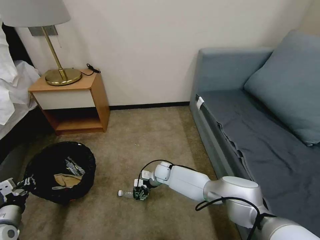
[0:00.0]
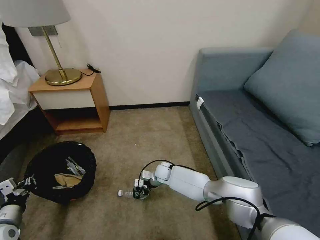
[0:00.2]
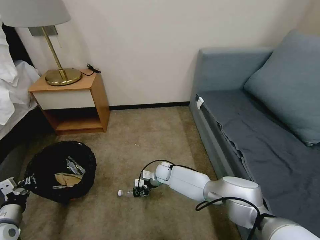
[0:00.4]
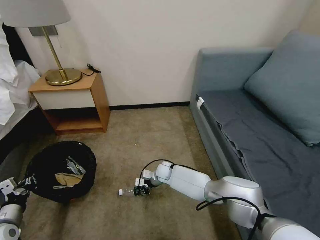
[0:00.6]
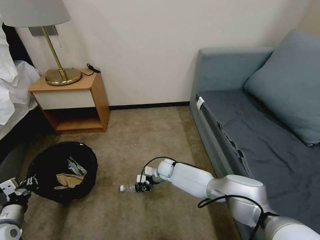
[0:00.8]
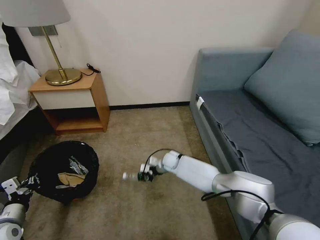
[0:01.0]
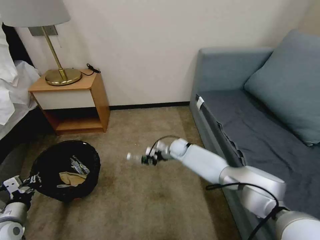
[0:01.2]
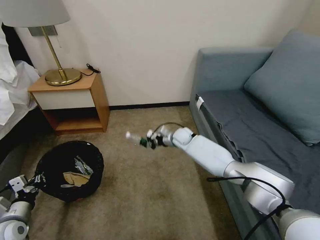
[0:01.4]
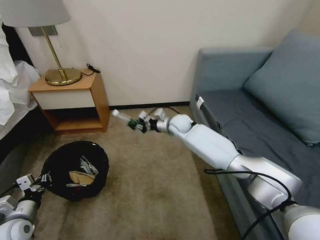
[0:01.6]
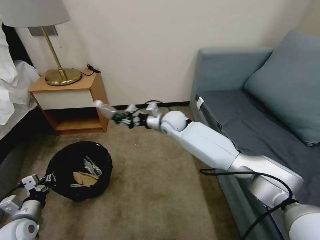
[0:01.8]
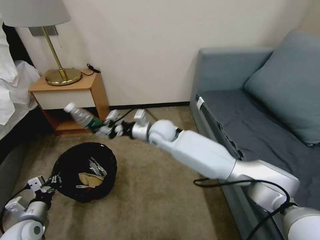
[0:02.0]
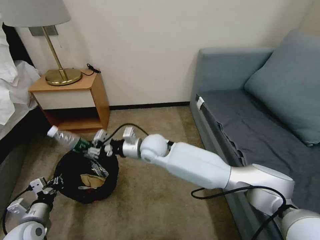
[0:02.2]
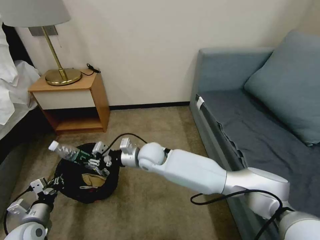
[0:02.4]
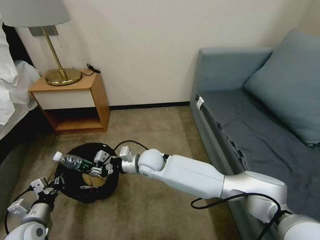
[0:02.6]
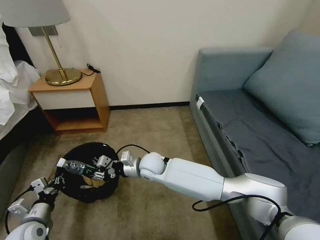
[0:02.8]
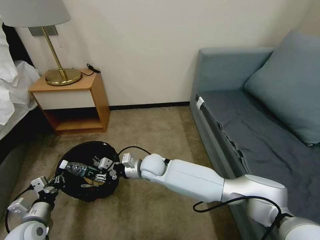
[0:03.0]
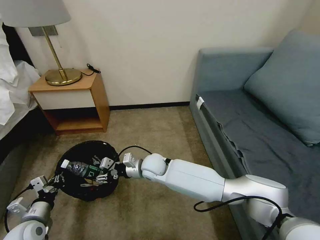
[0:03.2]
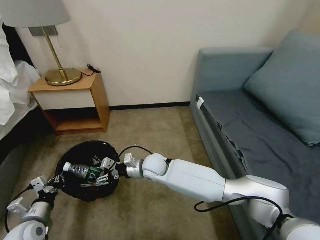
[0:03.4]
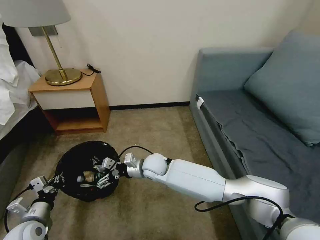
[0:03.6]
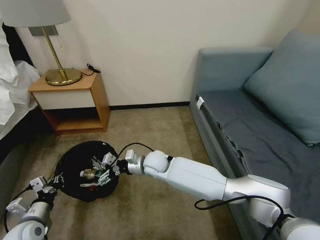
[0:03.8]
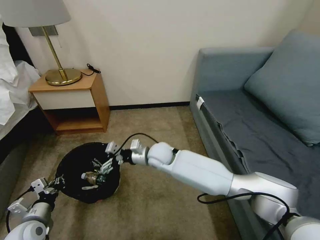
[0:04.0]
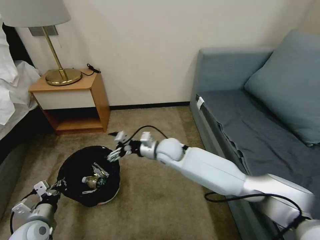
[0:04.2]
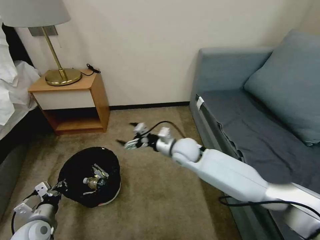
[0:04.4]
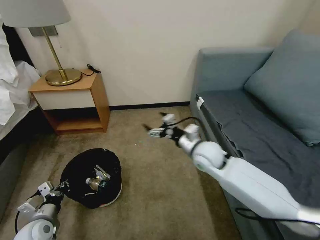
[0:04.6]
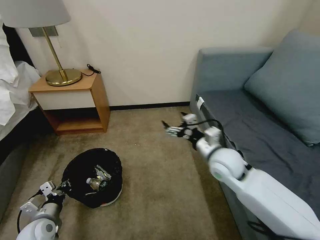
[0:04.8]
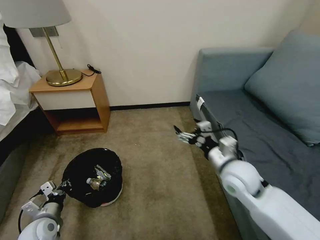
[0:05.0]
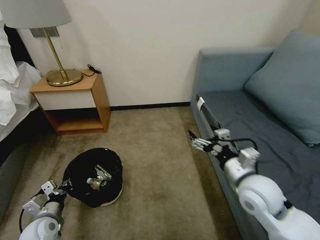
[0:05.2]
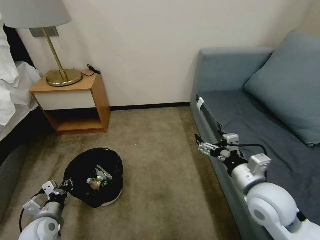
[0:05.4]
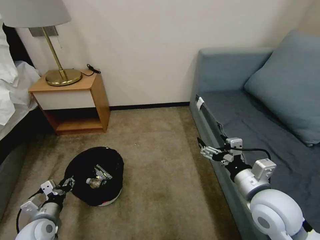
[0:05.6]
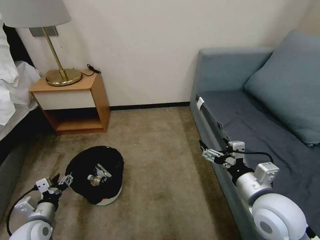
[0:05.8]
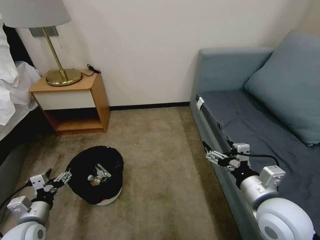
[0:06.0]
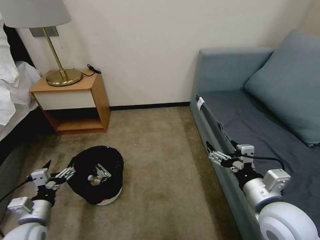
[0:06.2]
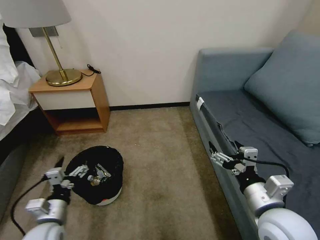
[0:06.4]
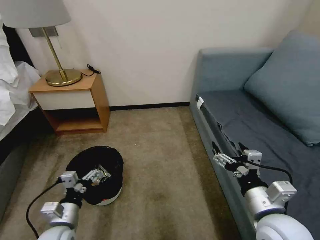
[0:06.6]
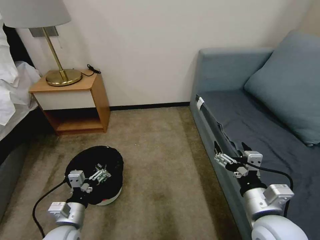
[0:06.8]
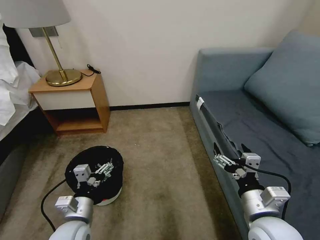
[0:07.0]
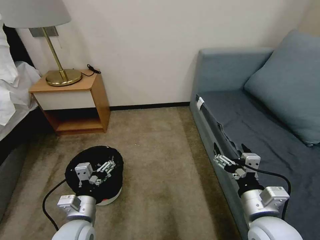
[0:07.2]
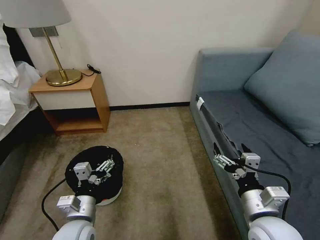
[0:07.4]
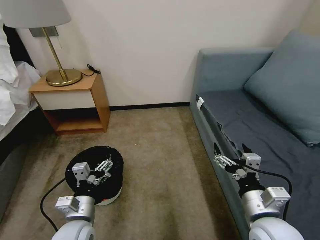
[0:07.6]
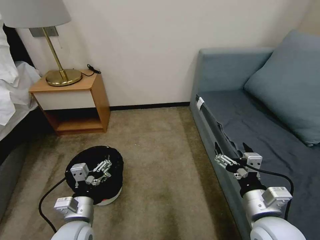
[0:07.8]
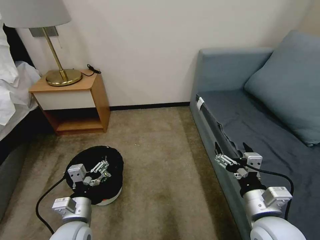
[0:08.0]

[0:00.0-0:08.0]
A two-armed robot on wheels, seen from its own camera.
Task of the whole recording: Pick up the trash bin, then pick up the garbage on the floor and place it into the trash bin.
0:00.0 to 0:01.6: The right gripper is displaced upward and forward by approximately 25 cm, and closes.
0:01.6 to 0:03.2: The right gripper moves backward and to the left, approximately 20 cm.
0:03.2 to 0:04.8: The right gripper is displaced to the right and upward by approximately 25 cm, and opens its fingers.
0:04.8 to 0:06.4: The left gripper is displaced to the right and upward by about 10 cm, and opens; the right gripper travels backward by roughly 15 cm.
0:06.4 to 0:08.0: The left gripper heads to the right, covering about 10 cm.

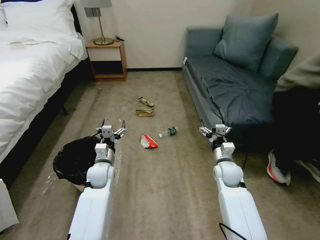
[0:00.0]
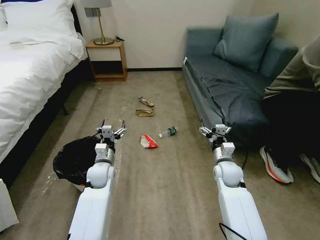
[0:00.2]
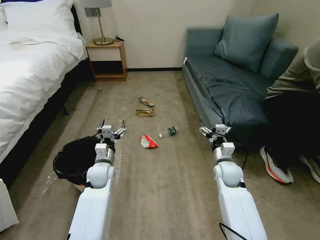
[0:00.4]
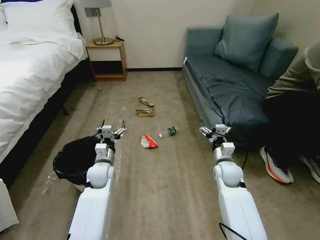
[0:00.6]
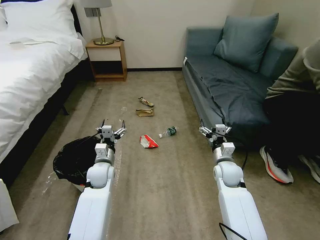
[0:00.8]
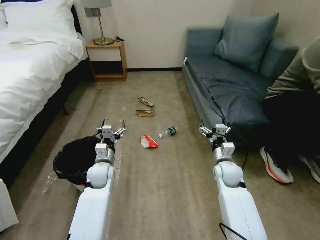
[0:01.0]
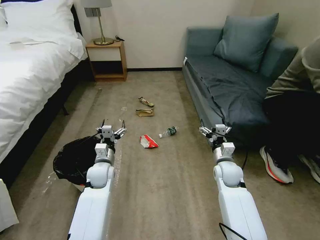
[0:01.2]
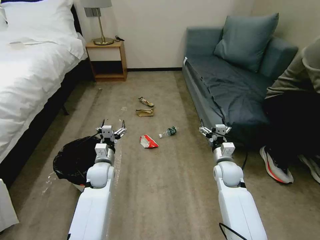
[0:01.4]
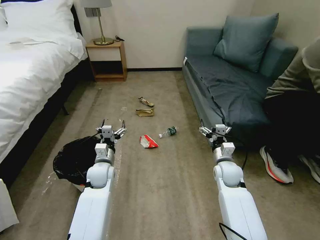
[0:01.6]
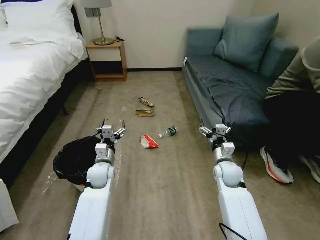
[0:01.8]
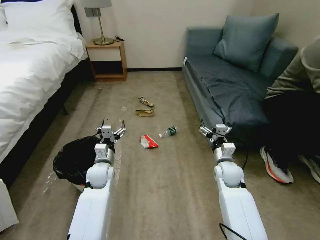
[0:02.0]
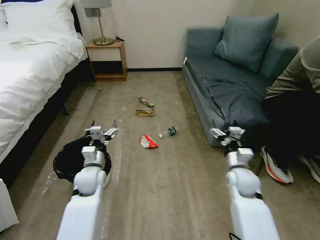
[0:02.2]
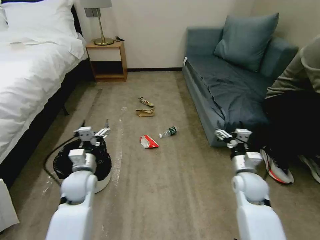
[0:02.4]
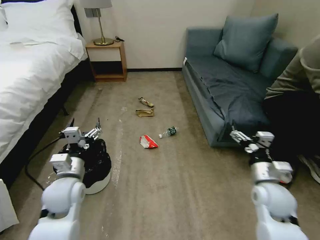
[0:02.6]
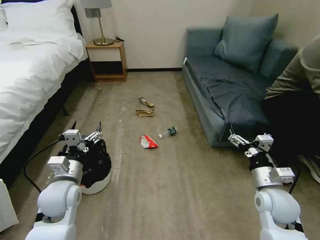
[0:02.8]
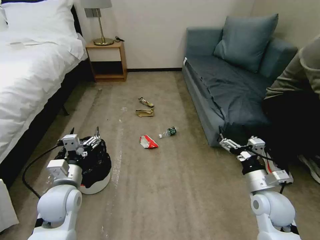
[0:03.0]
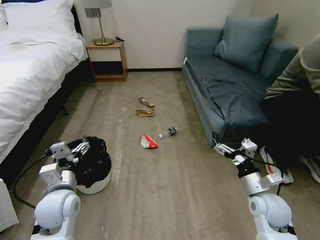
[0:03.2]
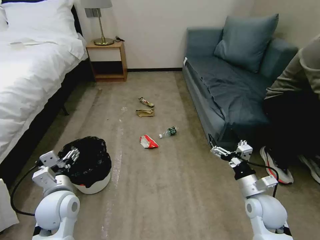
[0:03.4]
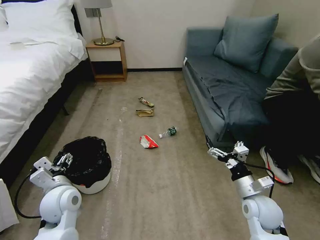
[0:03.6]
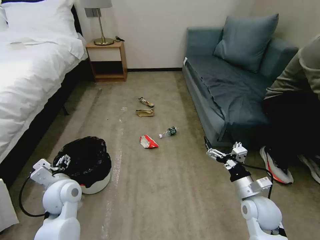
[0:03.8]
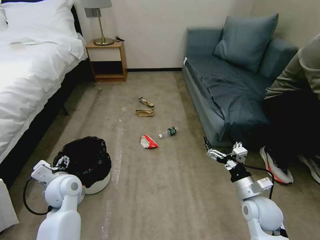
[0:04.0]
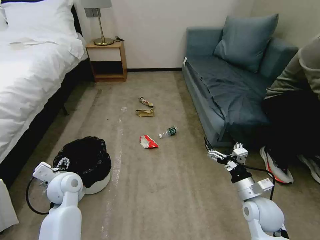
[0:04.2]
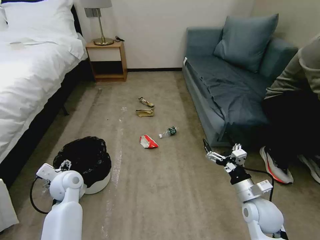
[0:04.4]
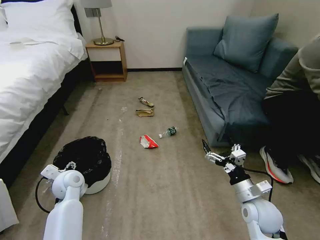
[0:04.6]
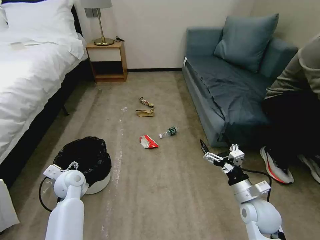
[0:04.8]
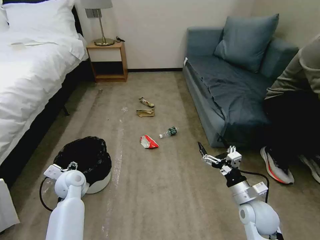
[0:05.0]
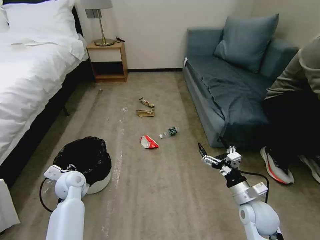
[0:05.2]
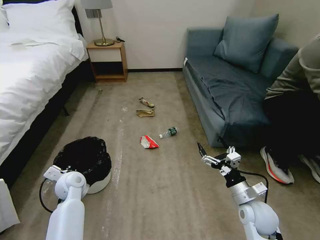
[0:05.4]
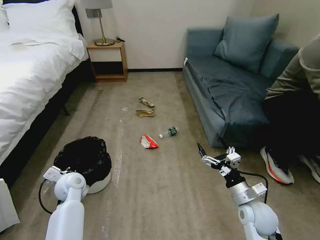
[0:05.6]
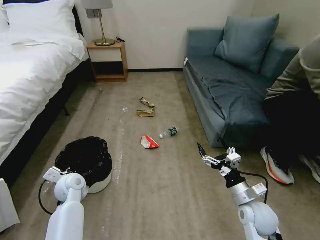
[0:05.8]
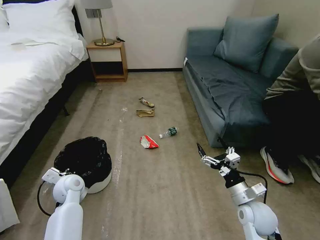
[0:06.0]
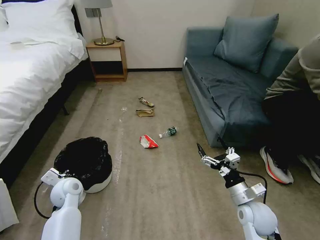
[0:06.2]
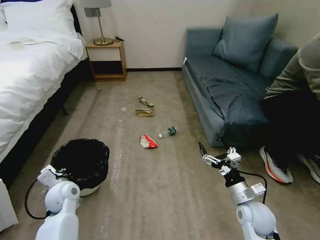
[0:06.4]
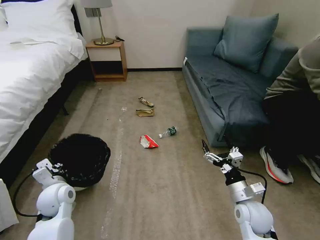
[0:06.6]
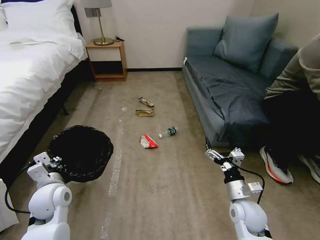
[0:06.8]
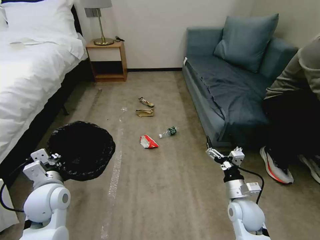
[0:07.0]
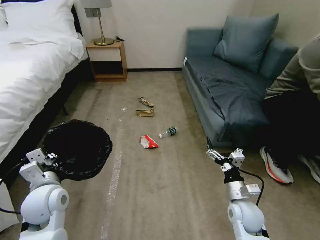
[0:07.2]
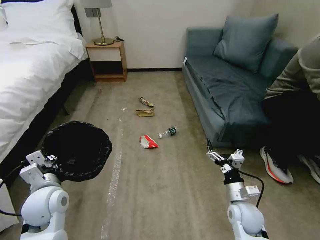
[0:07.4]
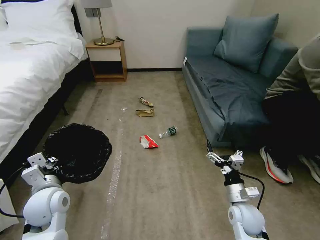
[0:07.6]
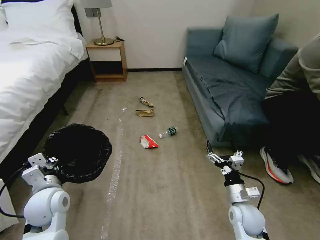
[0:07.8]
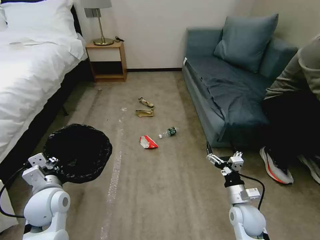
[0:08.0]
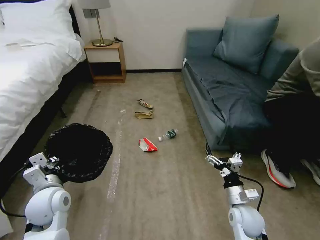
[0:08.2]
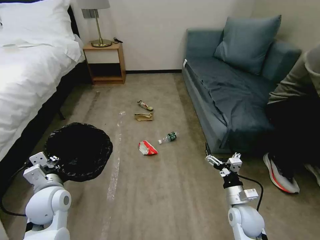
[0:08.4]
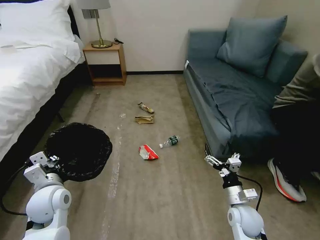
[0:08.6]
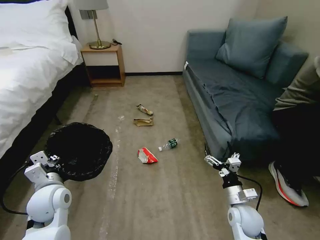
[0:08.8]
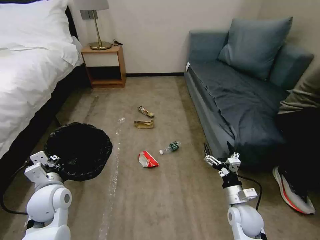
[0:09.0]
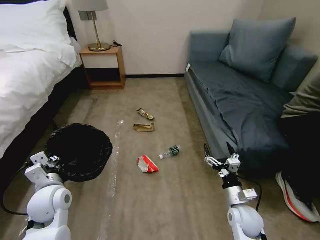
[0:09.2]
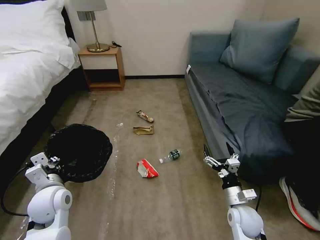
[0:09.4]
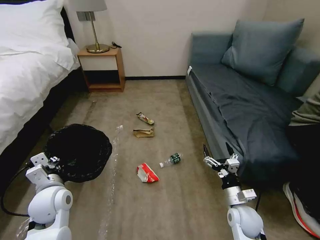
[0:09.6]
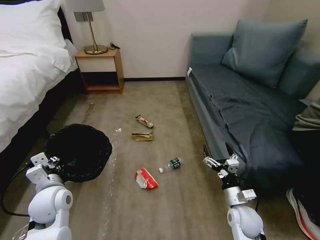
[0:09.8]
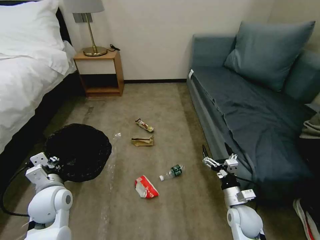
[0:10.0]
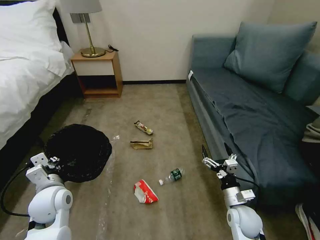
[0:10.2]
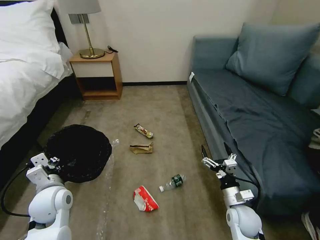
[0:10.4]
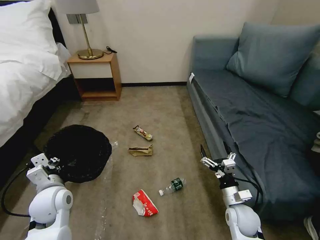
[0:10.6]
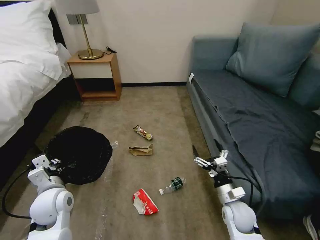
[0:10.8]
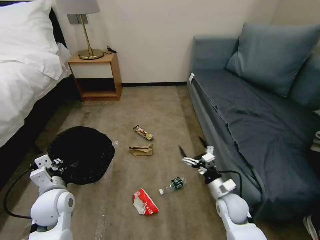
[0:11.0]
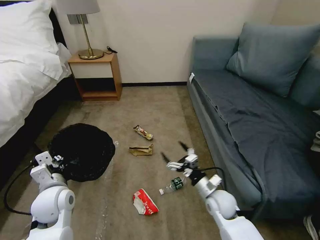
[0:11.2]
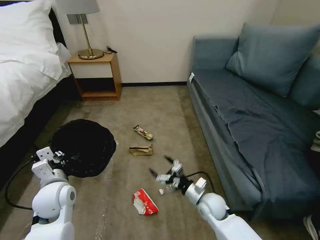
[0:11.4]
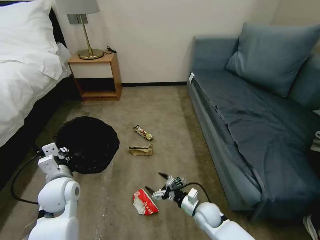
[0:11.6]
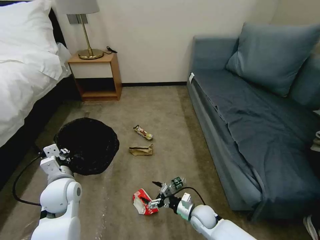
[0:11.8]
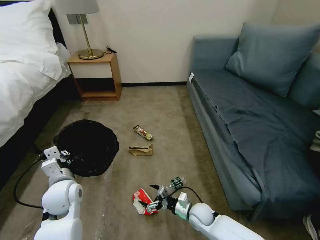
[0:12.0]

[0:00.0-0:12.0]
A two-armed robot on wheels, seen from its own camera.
Task of the whole recording: Pick up the trash bin, then pick up the garbage on the floor and place it into the trash bin.
0:01.6 to 0:03.0: The right gripper moves backward and to the right, some 15 cm; the left gripper shifts approximately 15 cm backward, upward and to the left.
0:03.0 to 0:04.4: The left gripper goes roughly 10 cm forward and downward.
0:04.4 to 0:06.0: The left gripper closes up.
0:06.0 to 0:07.6: The left gripper heads upward and backward, covering roughly 10 cm.
0:10.4 to 0:12.0: The right gripper is displaced to the left and downward by about 15 cm.

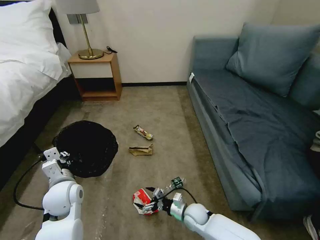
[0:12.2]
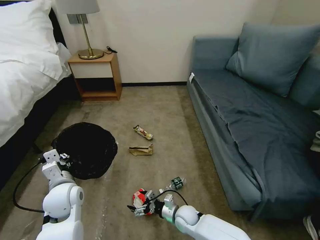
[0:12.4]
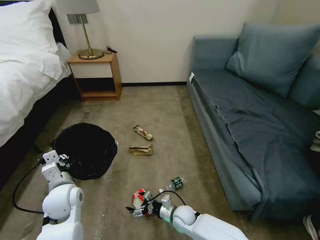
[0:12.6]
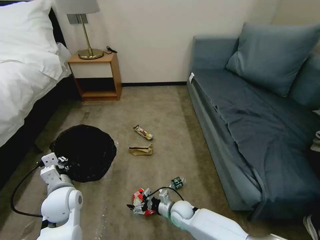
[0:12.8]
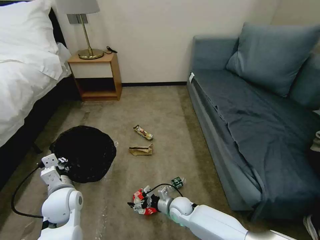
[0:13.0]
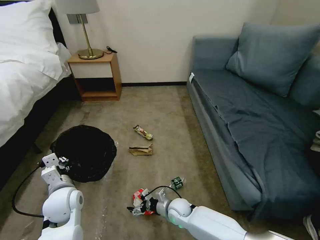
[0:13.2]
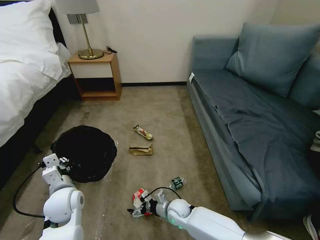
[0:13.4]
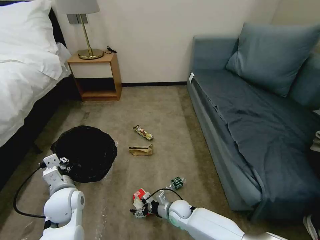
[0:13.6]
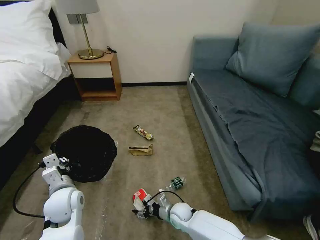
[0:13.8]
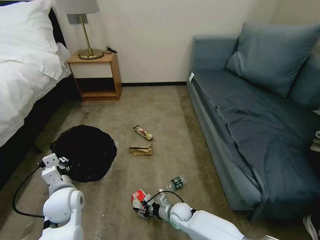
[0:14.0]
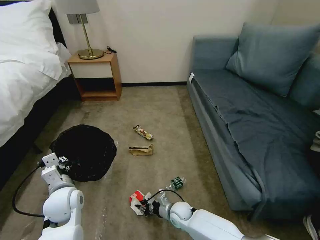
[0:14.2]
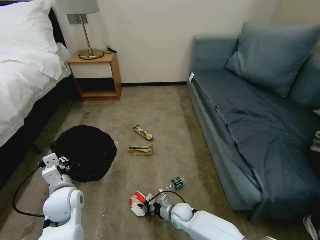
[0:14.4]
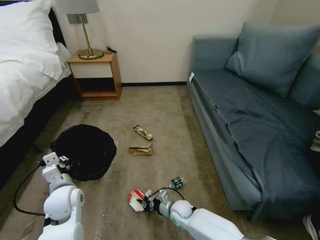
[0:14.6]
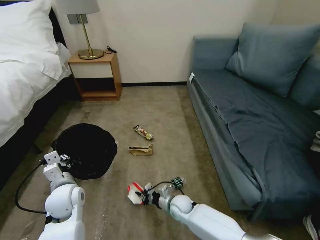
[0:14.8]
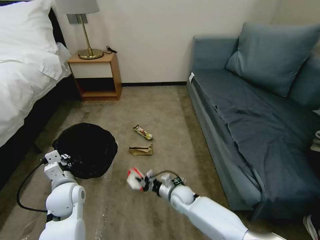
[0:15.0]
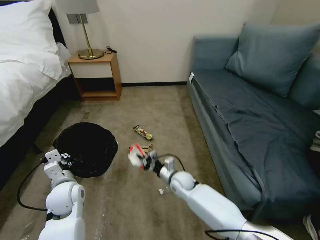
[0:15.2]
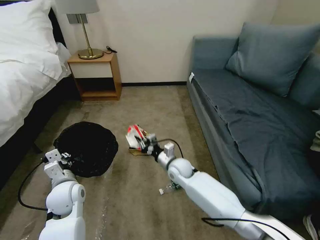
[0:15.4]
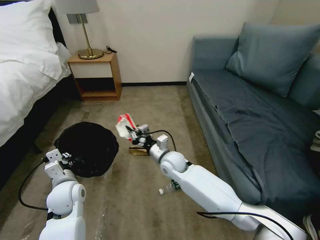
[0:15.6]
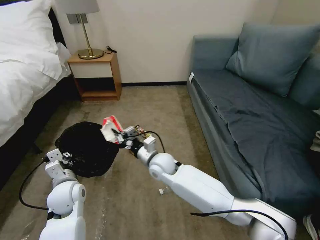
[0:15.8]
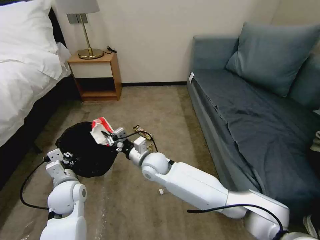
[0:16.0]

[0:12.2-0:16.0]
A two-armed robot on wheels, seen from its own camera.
Task of the whole recording: Pick up the trash bin, then pick up the garbage on the floor and place it into the trash bin.
0:12.2 to 0:13.4: The right gripper is displaced to the left by some 5 cm.
0:13.4 to 0:14.8: The right gripper closes its fingers.
0:14.8 to 0:16.0: The right gripper moves upward and to the left, approximately 25 cm.
